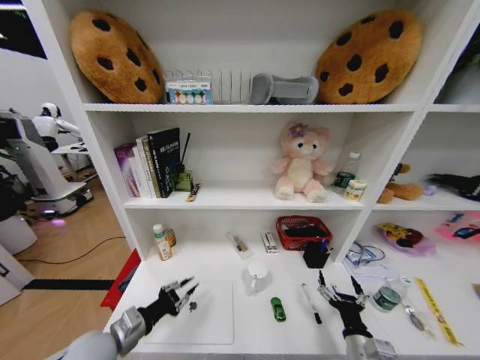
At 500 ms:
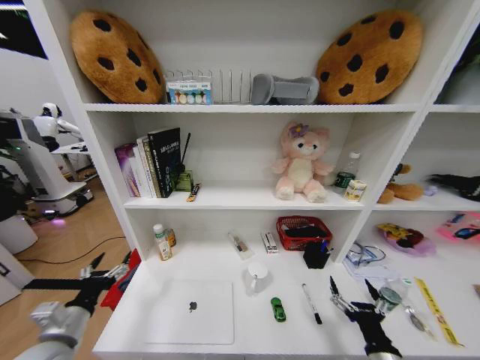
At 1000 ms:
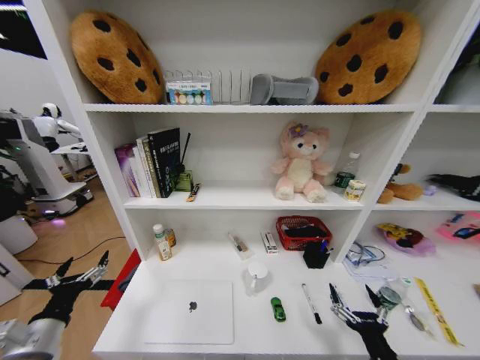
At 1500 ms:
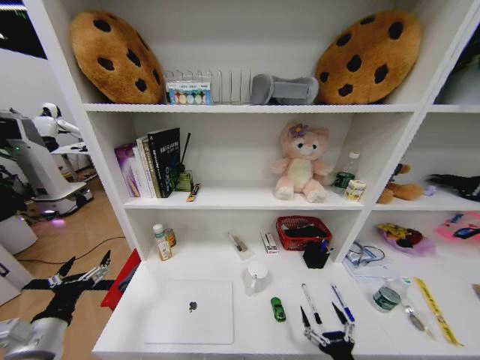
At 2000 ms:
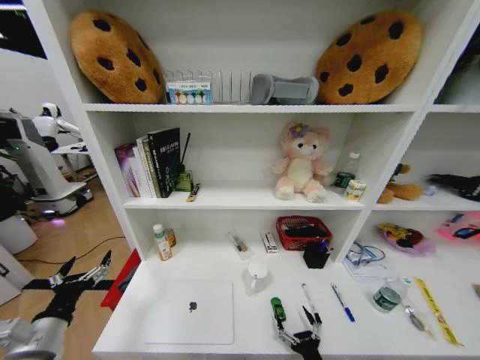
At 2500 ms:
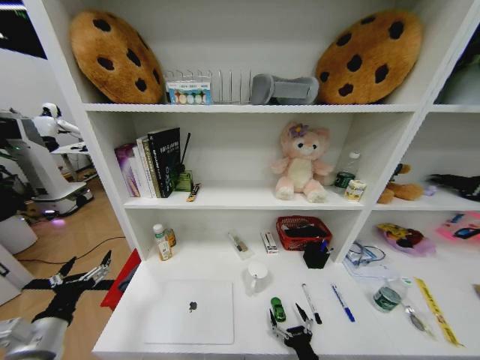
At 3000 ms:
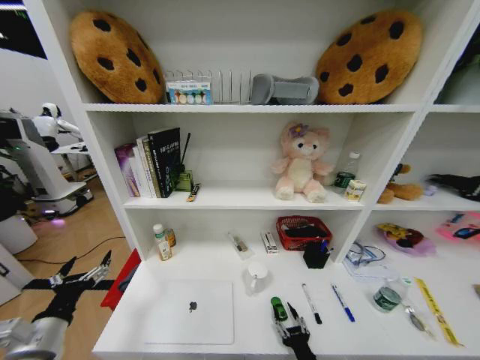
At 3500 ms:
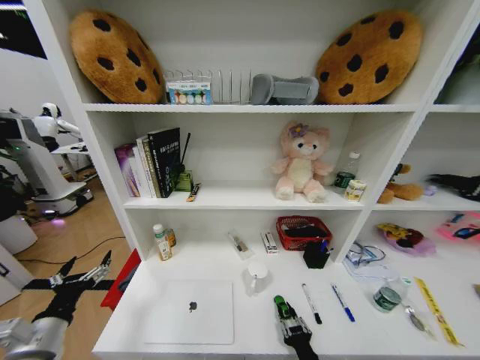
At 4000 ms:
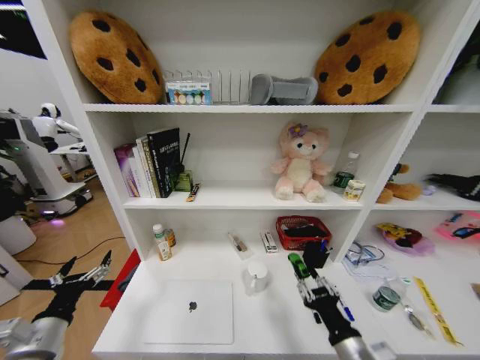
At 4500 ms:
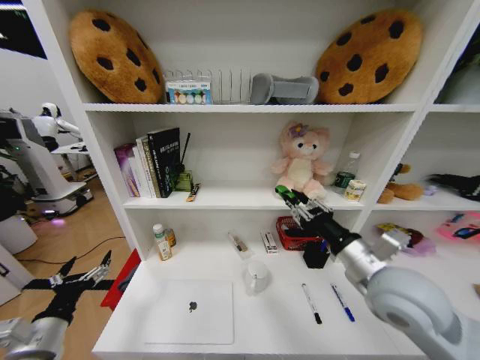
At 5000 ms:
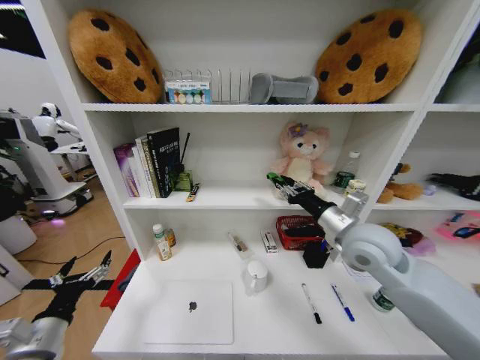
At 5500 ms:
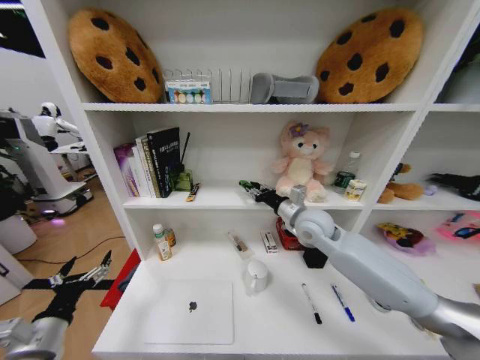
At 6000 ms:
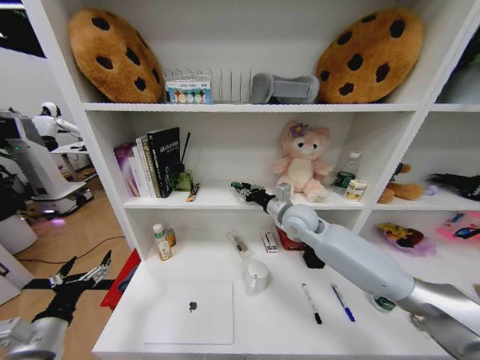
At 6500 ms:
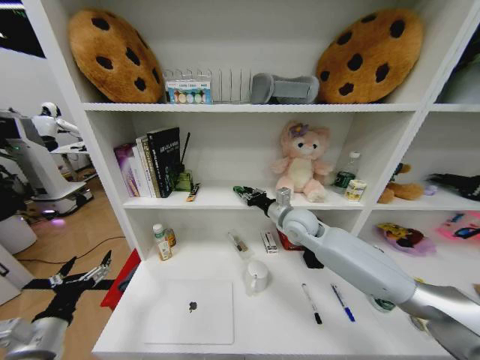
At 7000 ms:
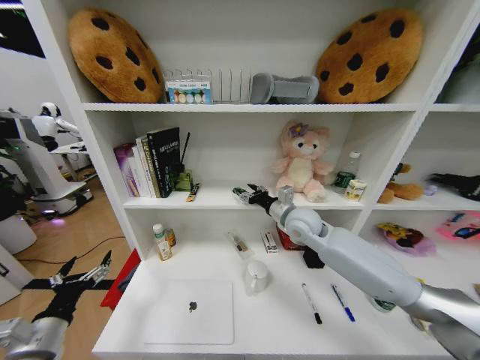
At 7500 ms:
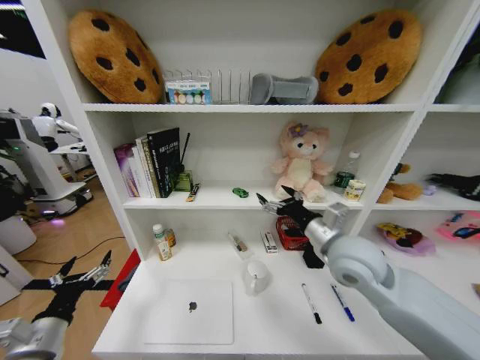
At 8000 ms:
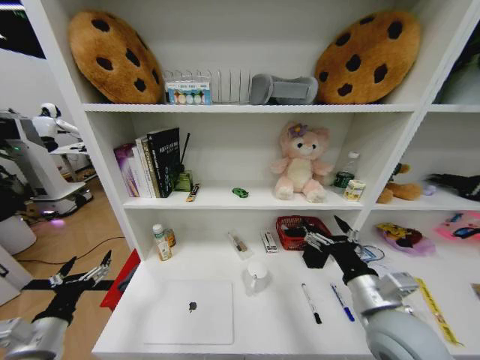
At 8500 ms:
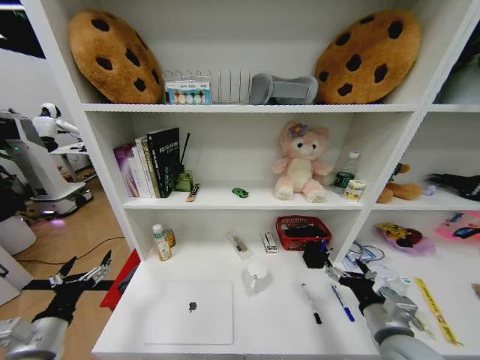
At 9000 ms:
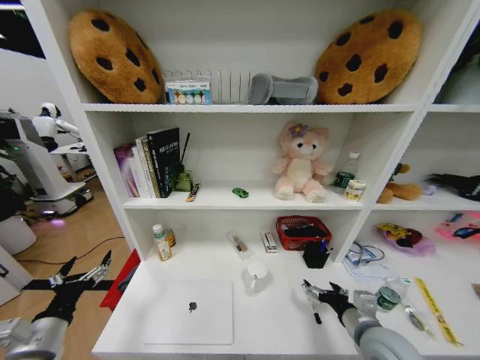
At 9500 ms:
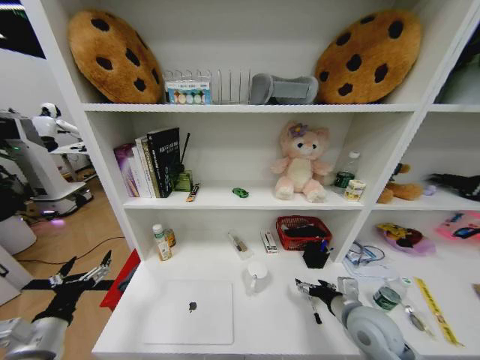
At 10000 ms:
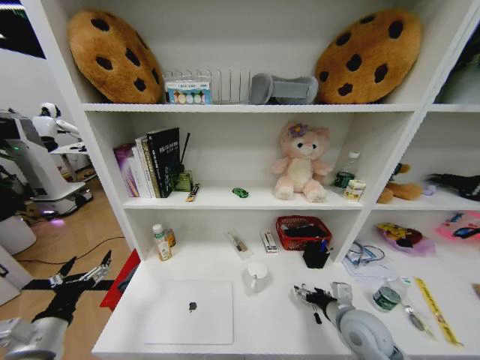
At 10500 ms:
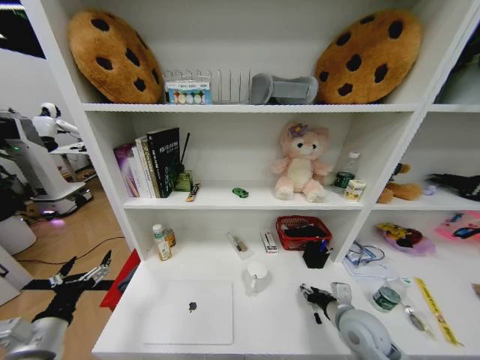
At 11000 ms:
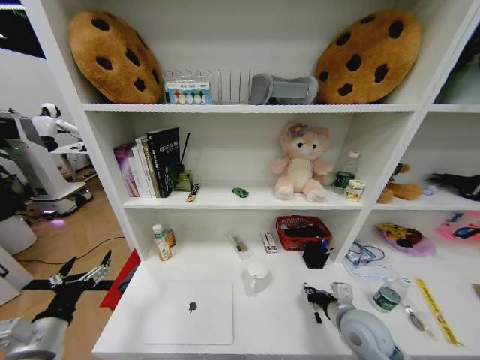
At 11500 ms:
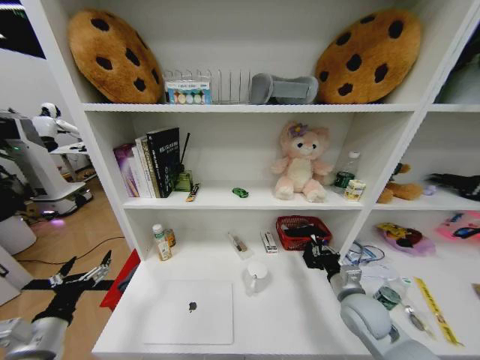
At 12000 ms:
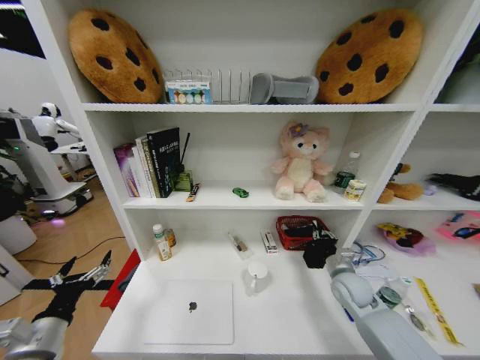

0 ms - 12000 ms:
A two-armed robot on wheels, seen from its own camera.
Task of the whole recording: Organize the objects on the table.
0 ms - 2000 ms: The right gripper shifts roughly 10 cm backward, downward and to the left, while the left gripper heads to the left and backward, covering roughly 10 cm, and opens up.
2000 ms - 4000 ms: The right gripper shifts some 15 cm upward, and closes its fingers.
4000 ms - 6000 ms: The right gripper shifts about 40 cm forward and upward.
6000 ms - 8000 ms: The right gripper moves backward, roughly 25 cm, and opens.
8000 ms - 10000 ms: The right gripper heads downward, covering about 15 cm.
10000 ms - 12000 ms: The right gripper moves forward, approximately 10 cm, and closes.

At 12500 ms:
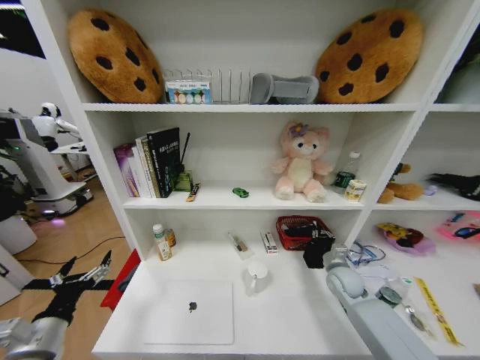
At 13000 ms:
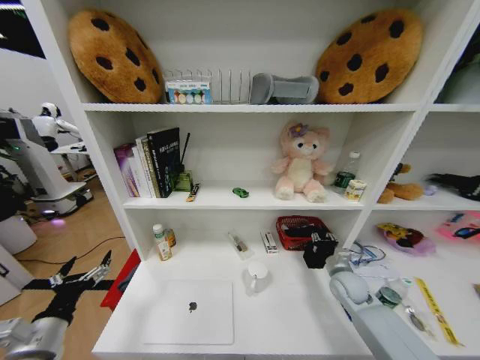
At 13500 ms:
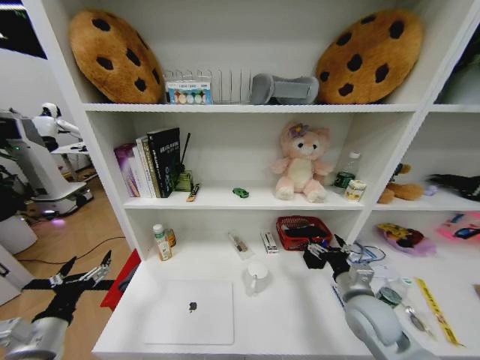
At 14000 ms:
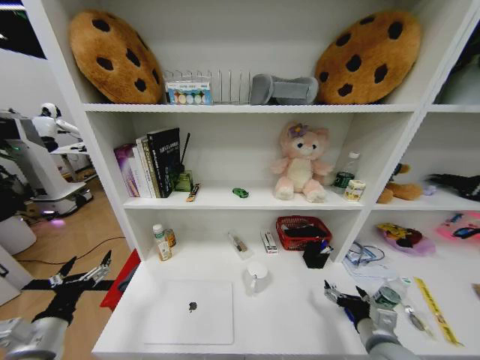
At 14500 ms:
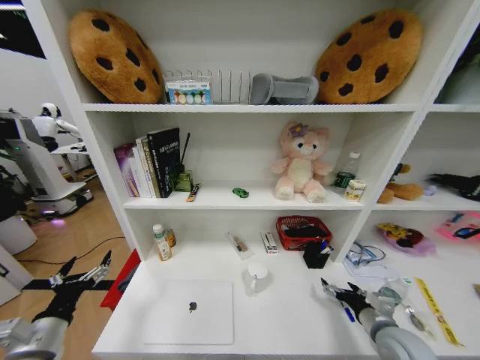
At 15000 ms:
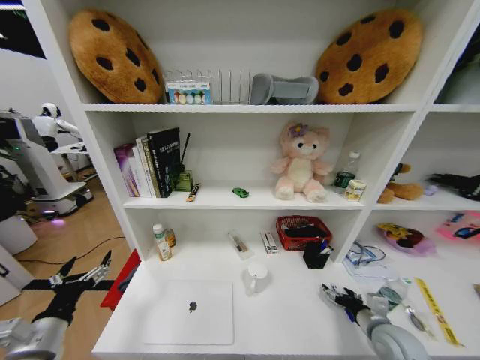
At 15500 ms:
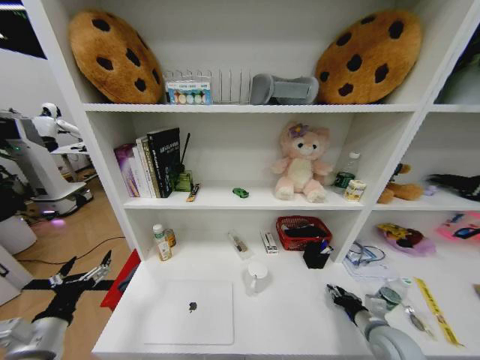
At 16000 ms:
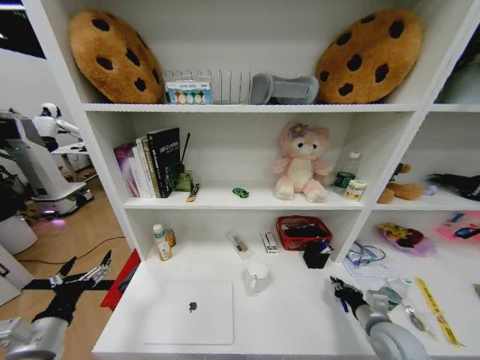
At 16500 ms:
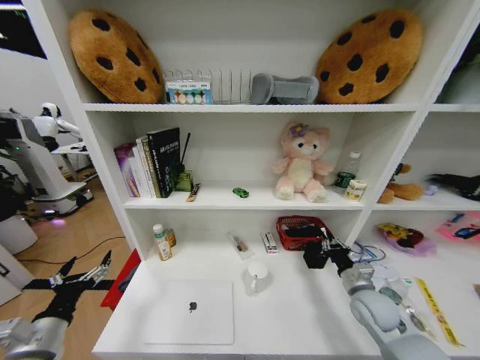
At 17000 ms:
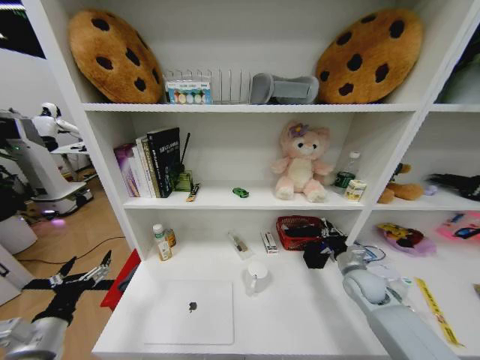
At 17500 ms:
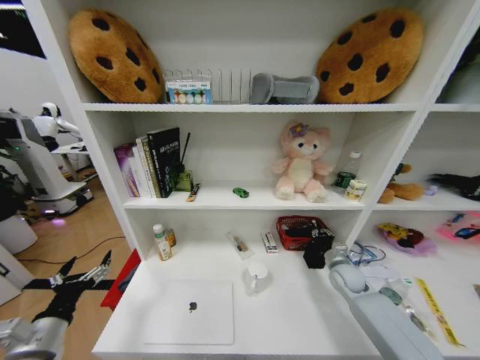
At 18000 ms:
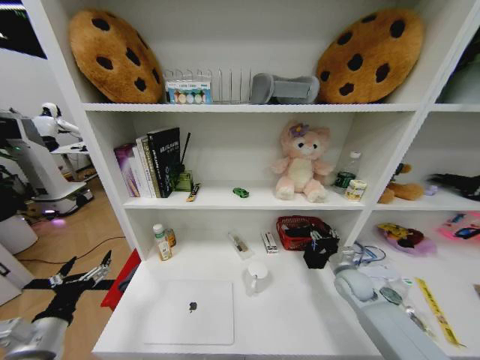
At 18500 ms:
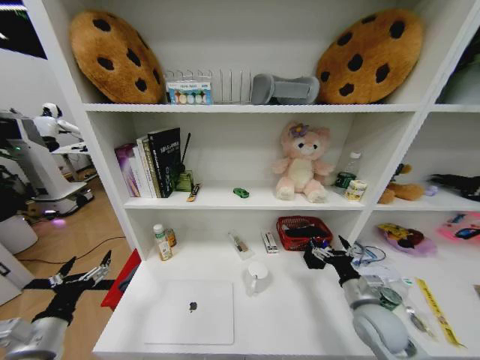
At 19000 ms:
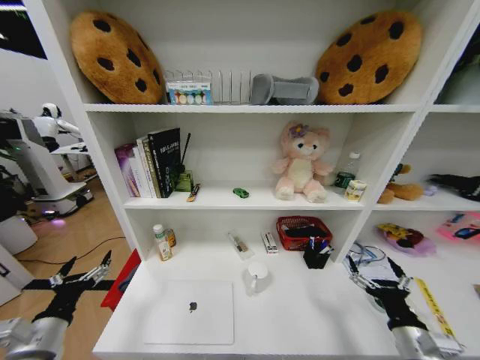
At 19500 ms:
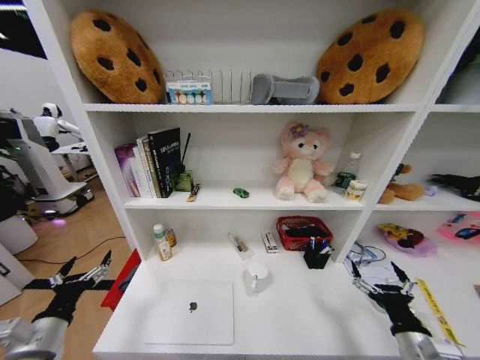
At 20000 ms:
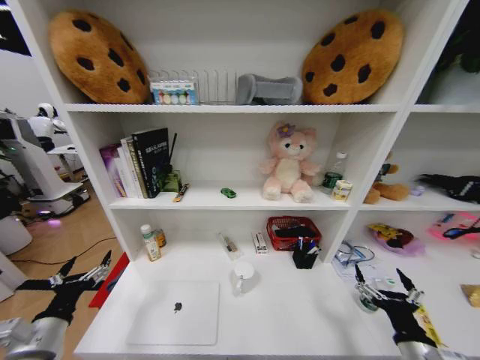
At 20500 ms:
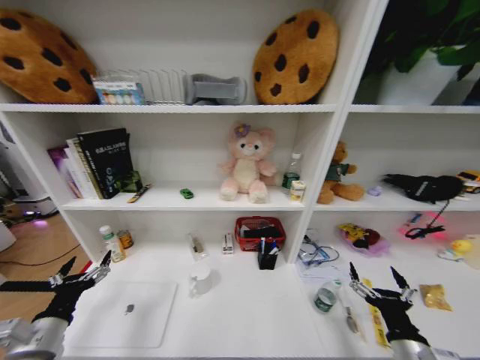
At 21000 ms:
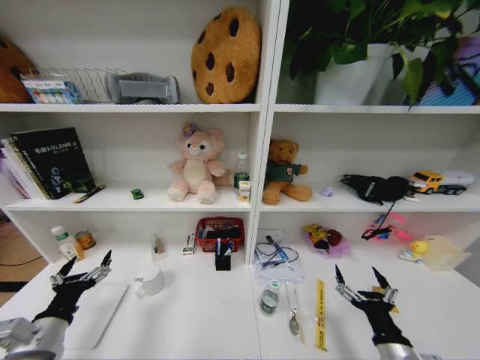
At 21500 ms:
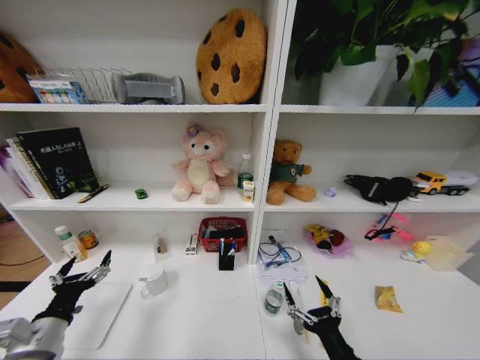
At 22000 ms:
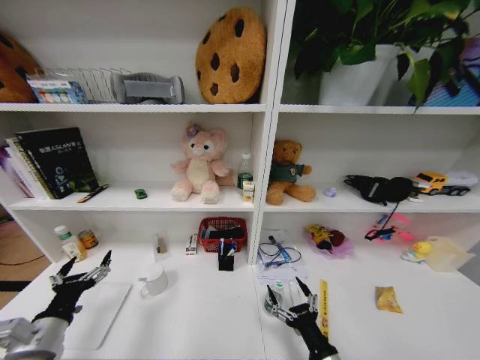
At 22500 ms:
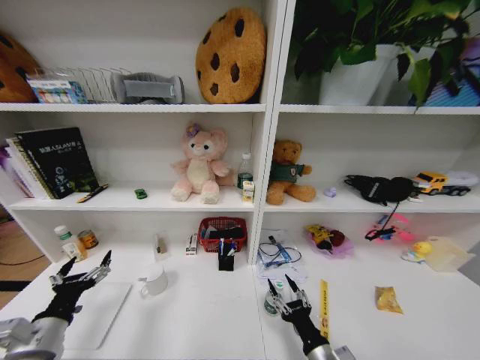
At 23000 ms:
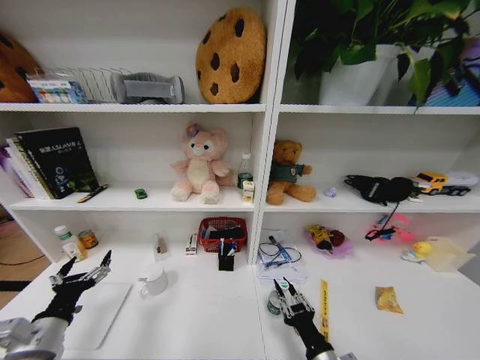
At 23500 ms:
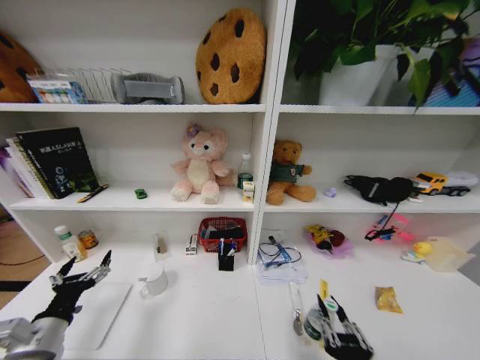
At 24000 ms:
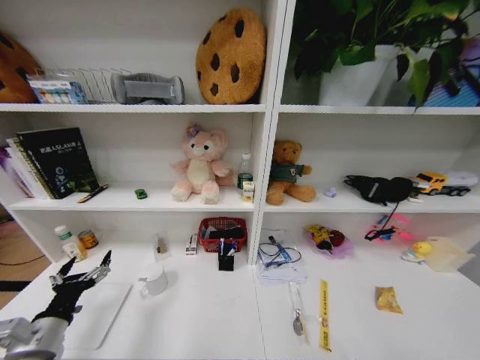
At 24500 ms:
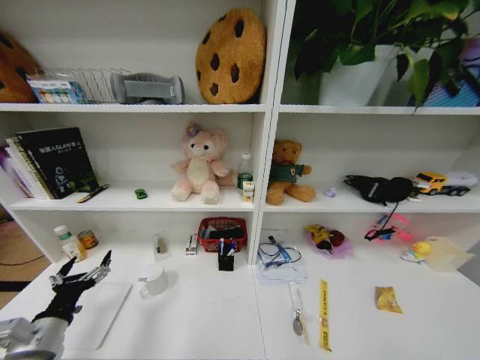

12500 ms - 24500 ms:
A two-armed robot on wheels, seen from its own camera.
Task of the whole recording: Organize the objects on the table.
12500 ms - 14500 ms: The right gripper travels backward by roughly 15 cm, and opens.
14500 ms - 16500 ms: The right gripper shifts roughly 10 cm forward, and closes its fingers.
16500 ms - 18500 ms: The right gripper reaches approximately 10 cm forward, then returns, and opens up.
18500 ms - 20500 ms: The right gripper moves backward, roughly 15 cm.
20500 ms - 22500 ms: The right gripper is displaced to the left and downward by about 15 cm.
22500 ms - 24500 ms: The right gripper heads backward and downward, covering some 30 cm, and closes.

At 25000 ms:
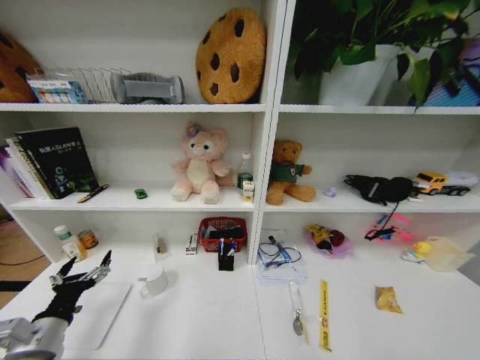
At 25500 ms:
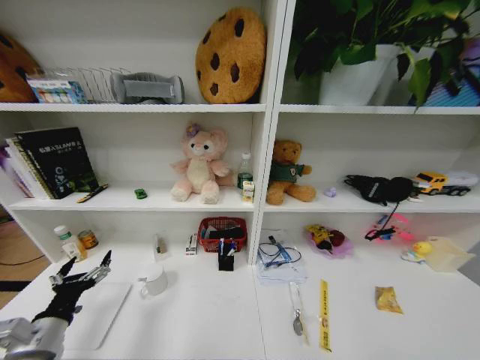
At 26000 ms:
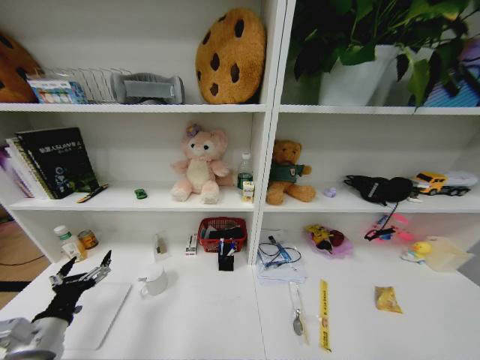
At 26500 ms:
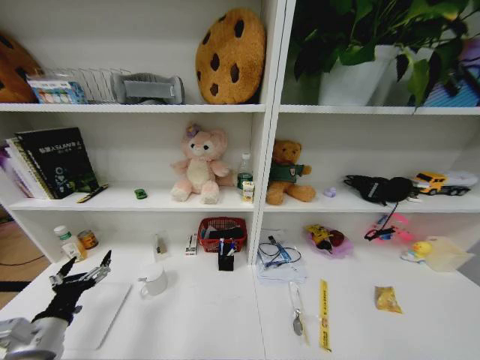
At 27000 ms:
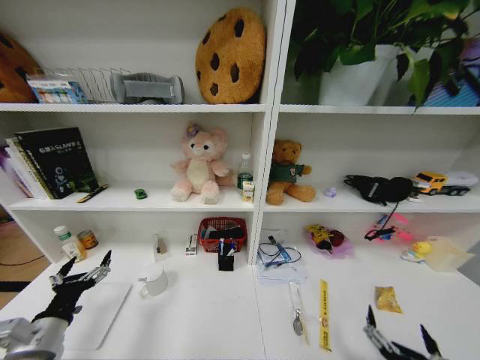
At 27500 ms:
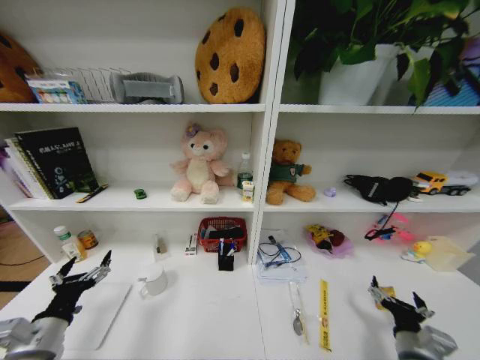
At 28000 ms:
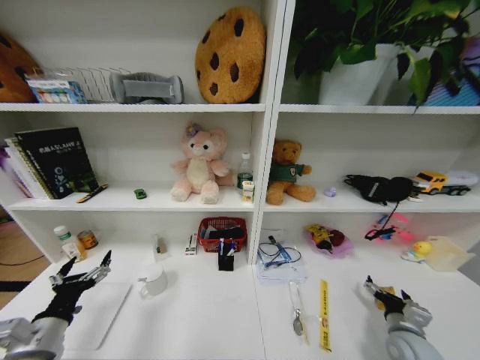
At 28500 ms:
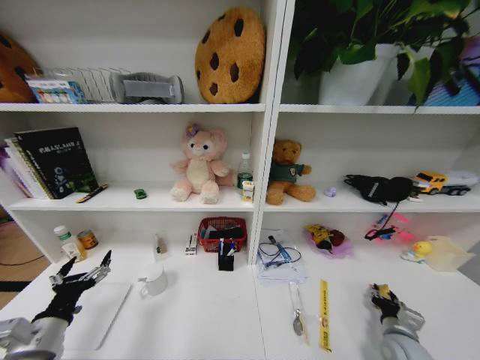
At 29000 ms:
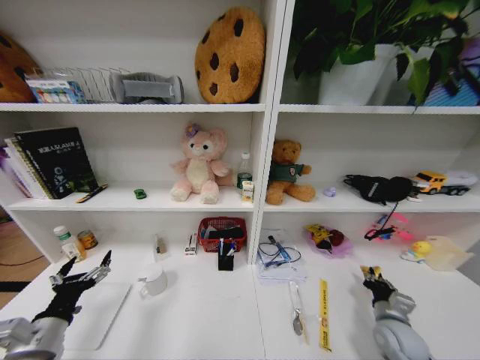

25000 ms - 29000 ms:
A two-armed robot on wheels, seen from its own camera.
Task of the whole recording: Organize the objects on the table.
25000 ms - 27000 ms: The right gripper shifts some 30 cm upward, and opens its fingers.
27000 ms - 29000 ms: The right gripper moves forward and to the right, some 25 cm, and closes its fingers.
